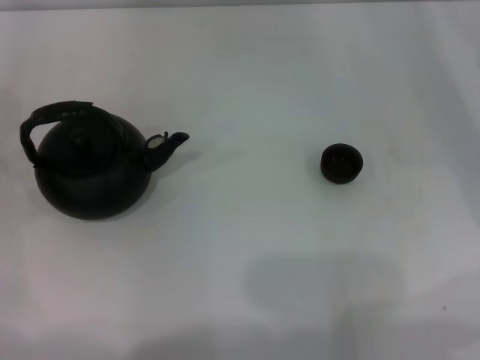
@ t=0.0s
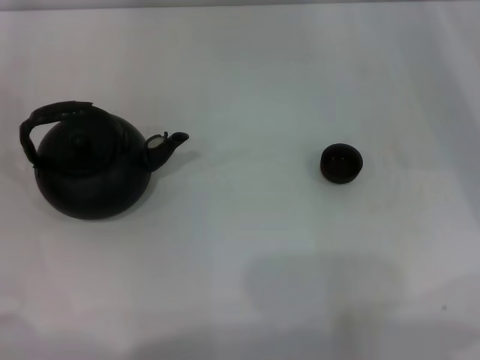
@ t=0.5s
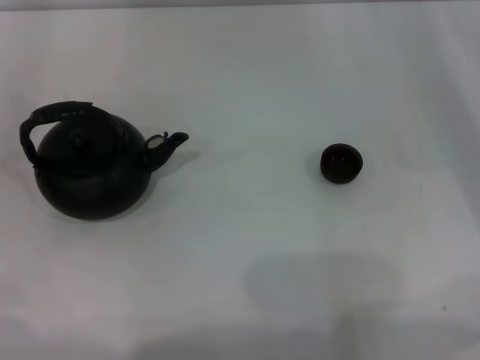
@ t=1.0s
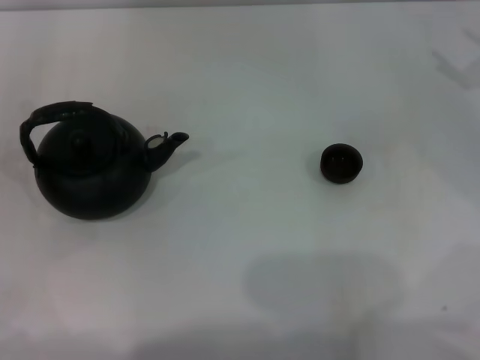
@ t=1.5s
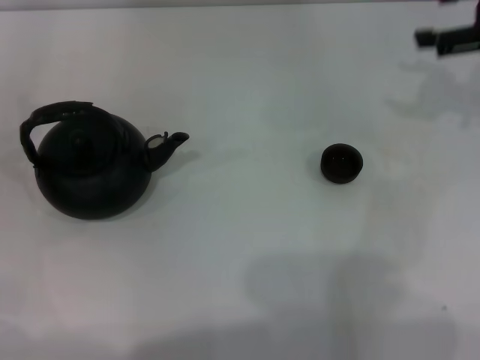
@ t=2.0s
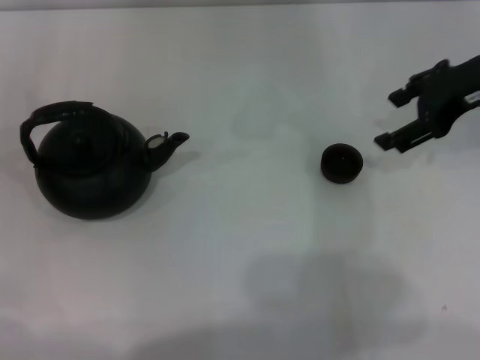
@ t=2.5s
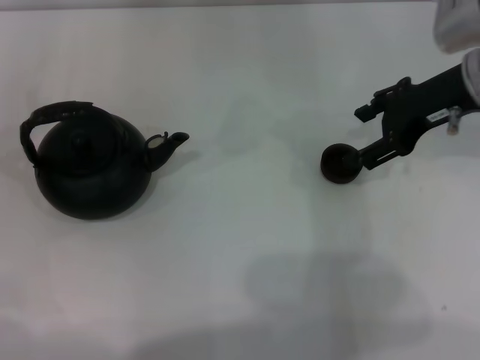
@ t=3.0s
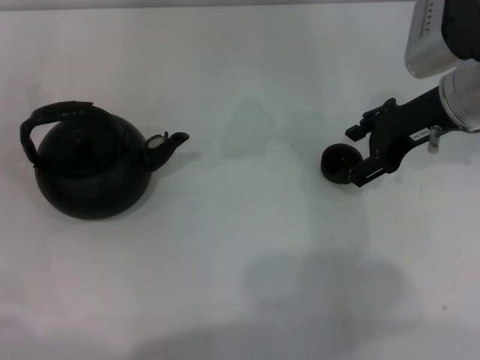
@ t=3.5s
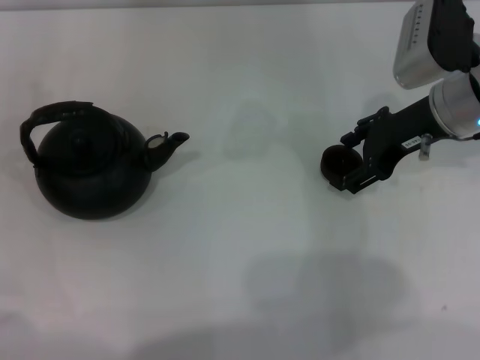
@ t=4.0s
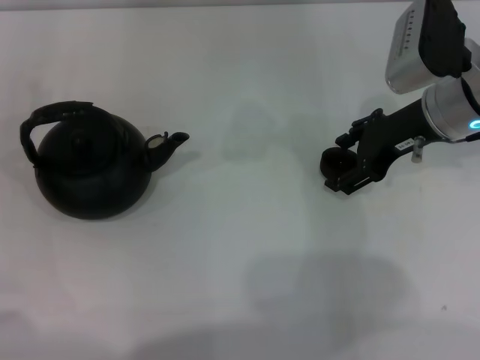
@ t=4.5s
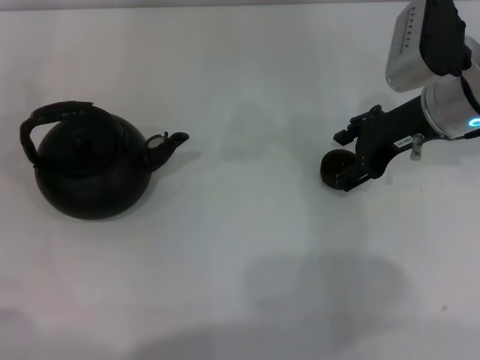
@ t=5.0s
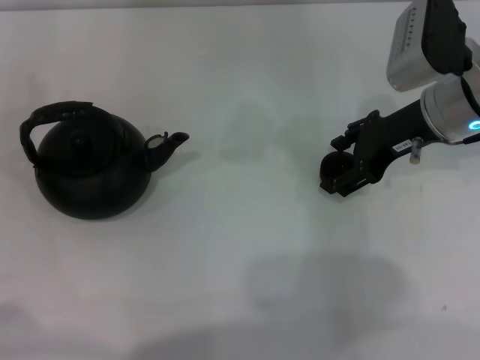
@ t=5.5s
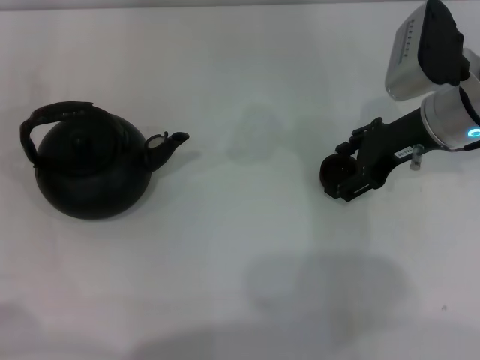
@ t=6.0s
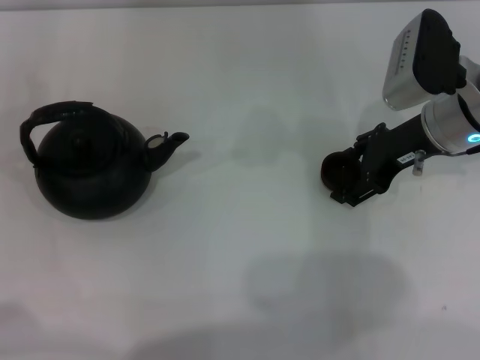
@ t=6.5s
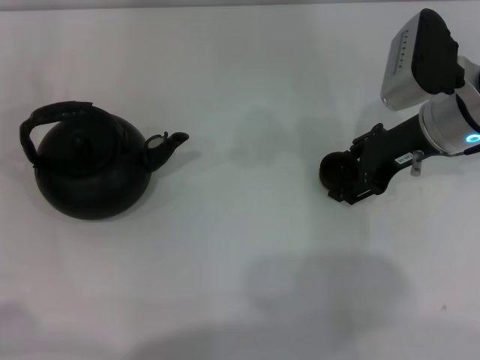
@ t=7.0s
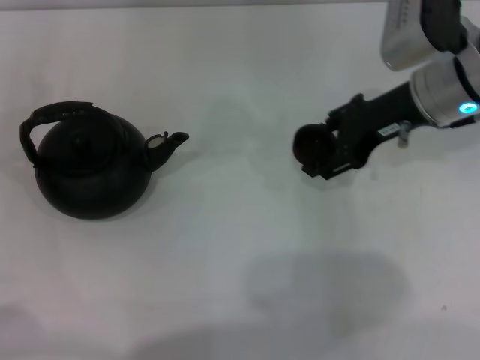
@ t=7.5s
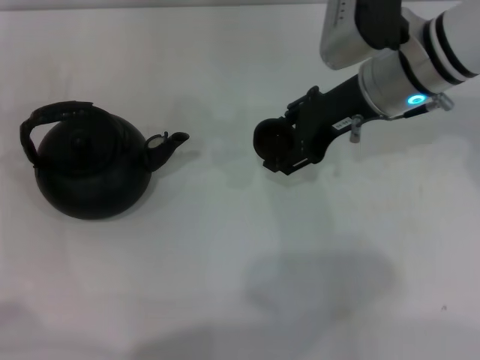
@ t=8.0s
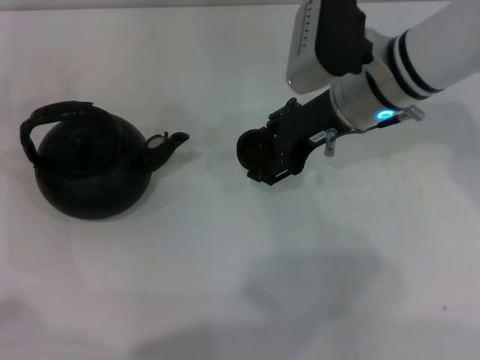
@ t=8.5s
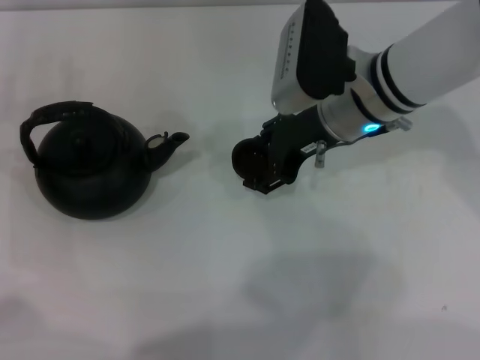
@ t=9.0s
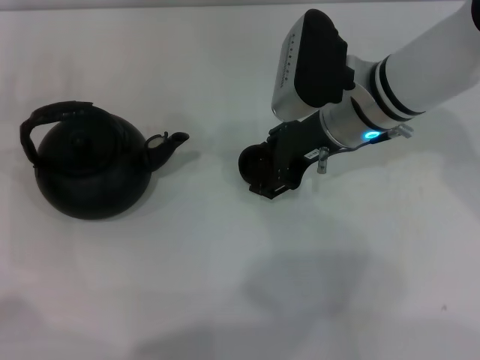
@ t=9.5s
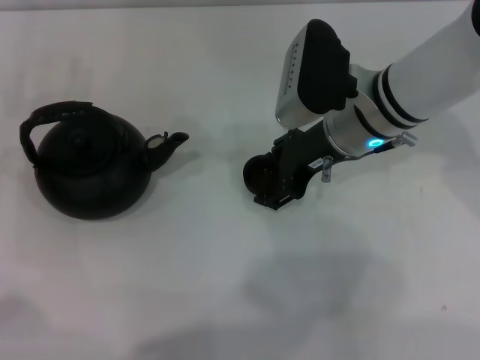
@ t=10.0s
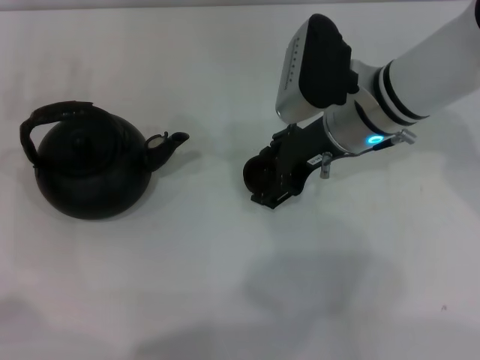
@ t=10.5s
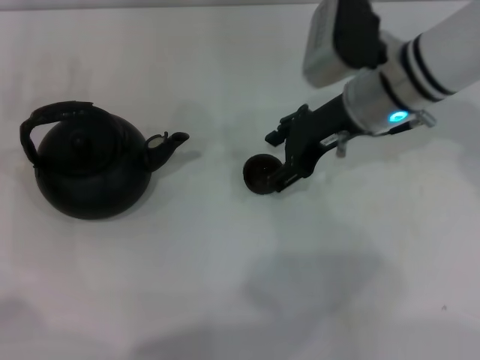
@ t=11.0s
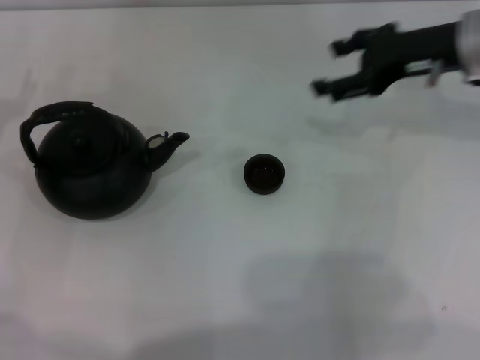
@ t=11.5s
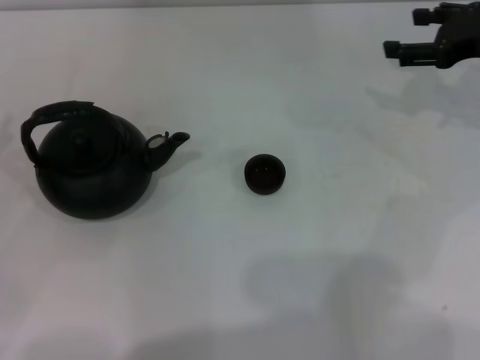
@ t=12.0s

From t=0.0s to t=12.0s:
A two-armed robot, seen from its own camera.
Task of the whole recording: Grasp the handle of the teapot with one hand and pour tea into the teacup.
Step, from t=0.0s to t=7.0s: Pick up the teacup with the right gripper.
Step, from t=7.5s to t=11.0s: Place the teacup in the center of view with the right gripper.
From t=0.0s to t=2.0s: The right gripper shifts some 15 cm upward.
From t=2.0s to t=4.0s: The right gripper heads to the left and downward, covering roughly 15 cm.
From t=4.0s to t=6.0s: The grippers make only small movements.
From t=6.0s to t=8.0s: The right gripper is displaced to the left by roughly 5 cm, and closes.
From t=8.0s to t=10.0s: The right gripper shifts by some 5 cm.
From t=10.0s to t=12.0s: The left gripper heads backward and to the left, covering about 10 cm; the right gripper heads to the right, covering approximately 20 cm, and opens.

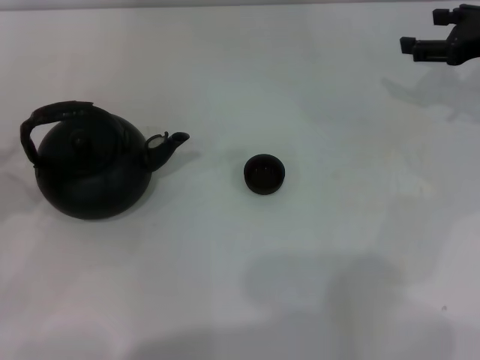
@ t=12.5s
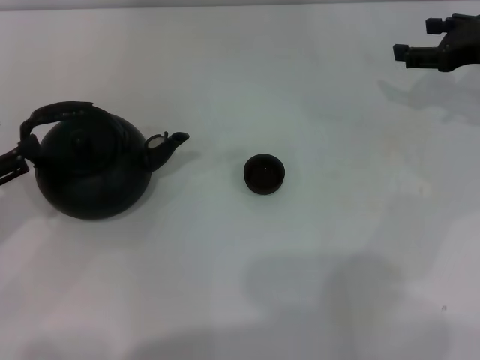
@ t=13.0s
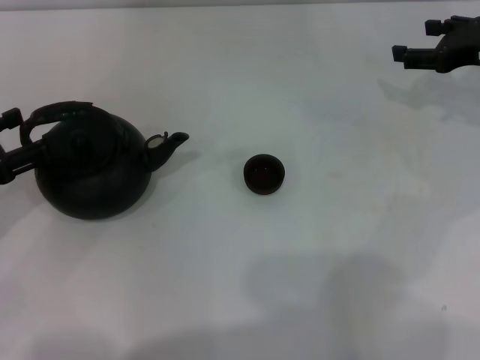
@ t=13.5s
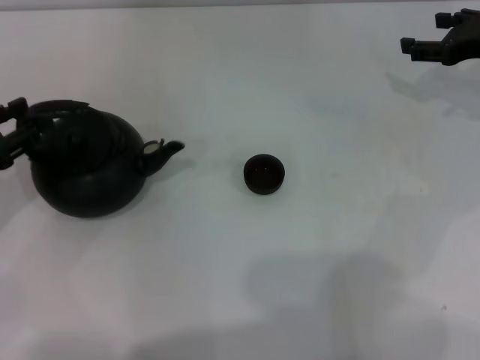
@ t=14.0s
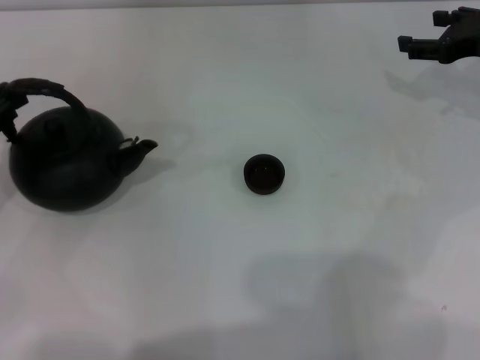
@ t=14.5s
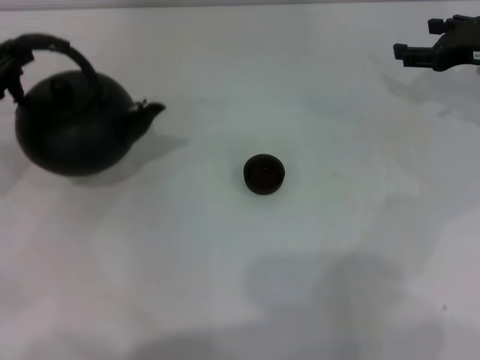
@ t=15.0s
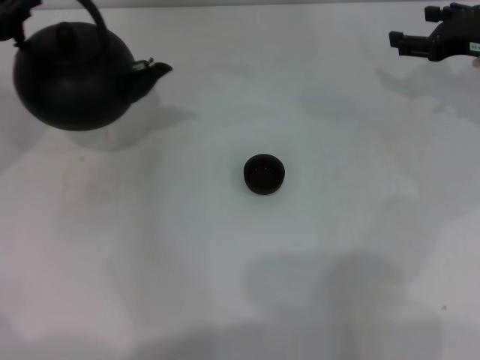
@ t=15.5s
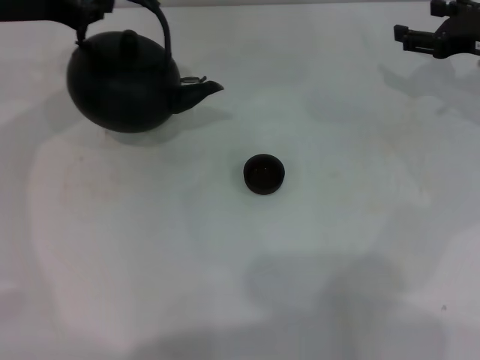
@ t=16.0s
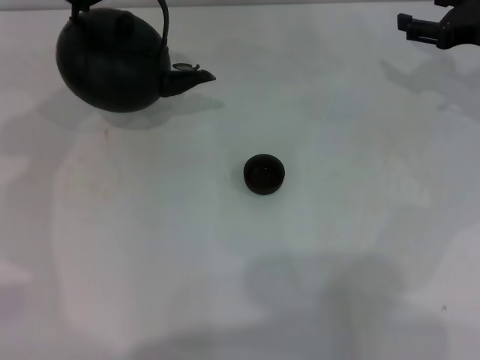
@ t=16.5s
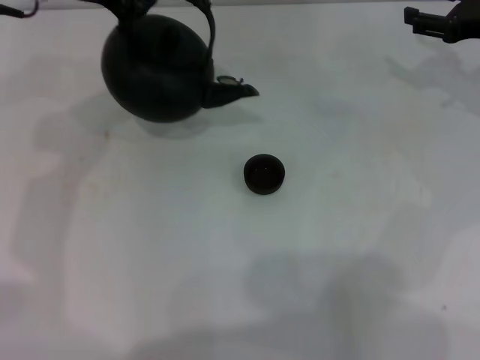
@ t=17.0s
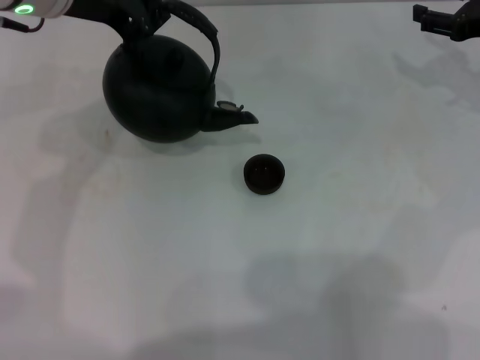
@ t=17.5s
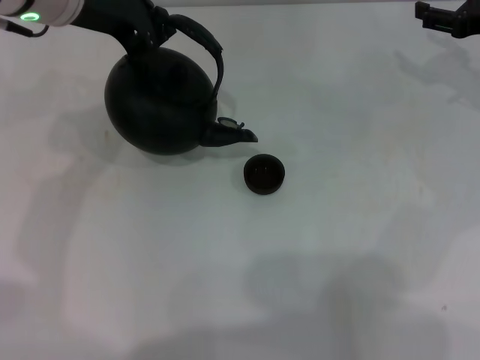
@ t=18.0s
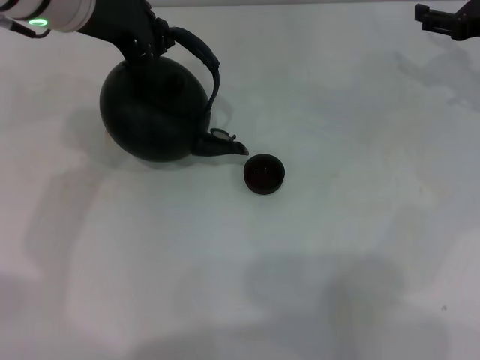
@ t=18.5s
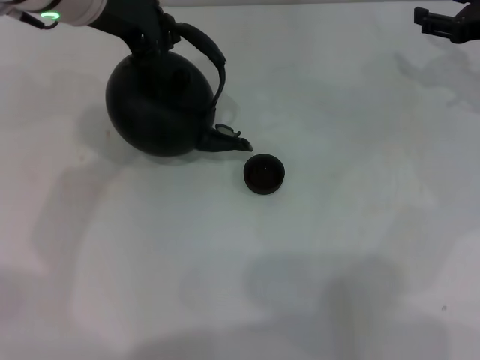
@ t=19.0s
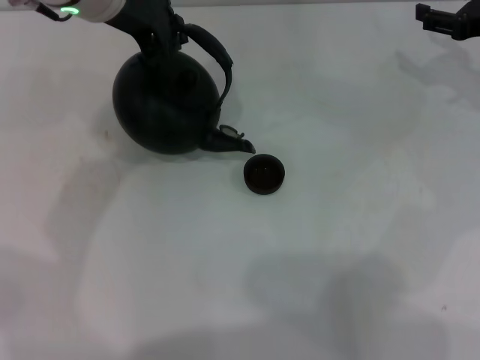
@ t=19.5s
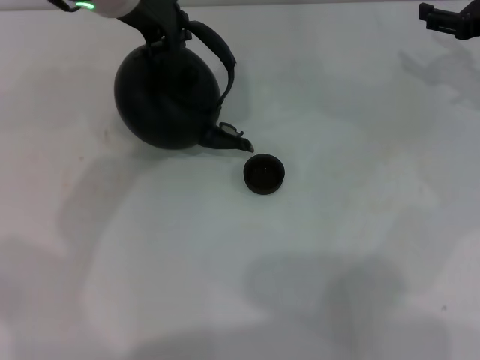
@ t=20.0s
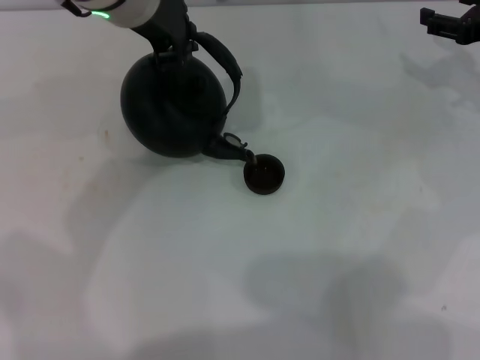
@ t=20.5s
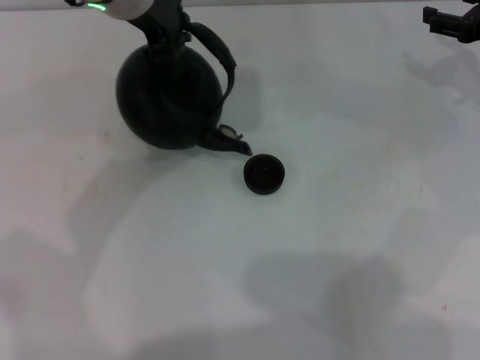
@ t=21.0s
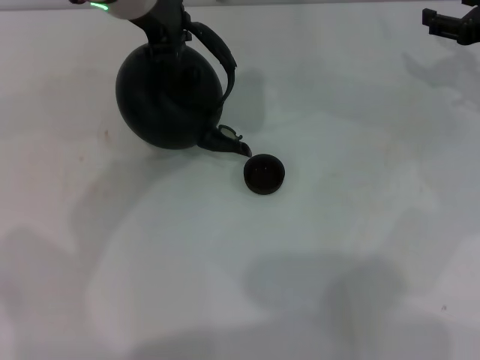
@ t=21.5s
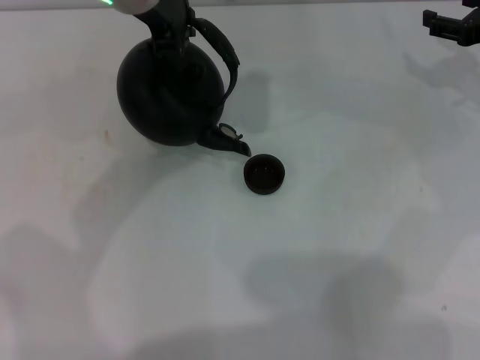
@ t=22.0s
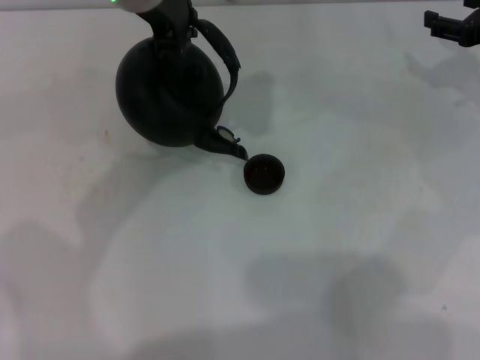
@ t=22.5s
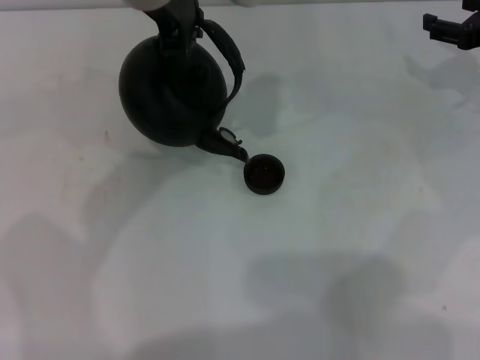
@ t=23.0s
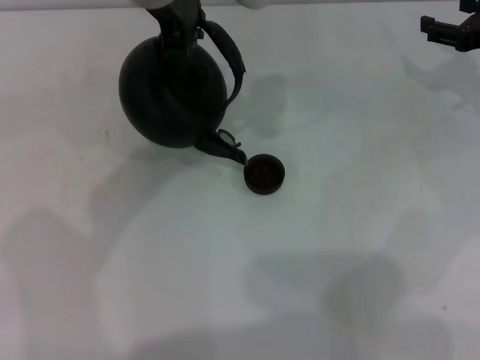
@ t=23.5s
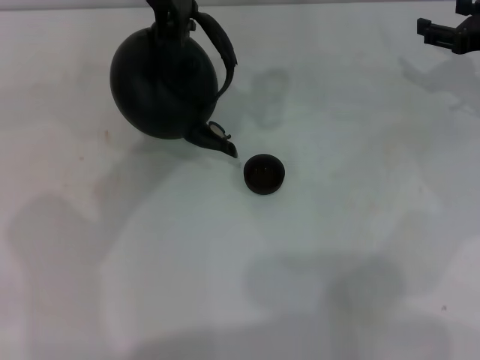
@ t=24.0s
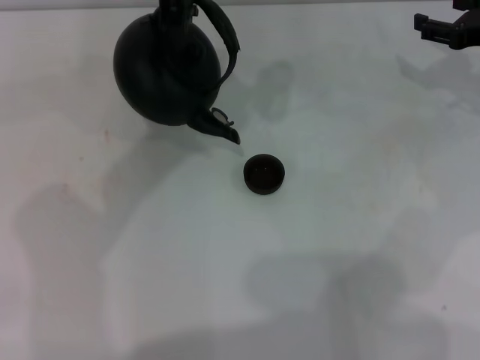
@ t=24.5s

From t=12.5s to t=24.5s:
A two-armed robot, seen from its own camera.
Task of the whole recording: Grasp the handle of the teapot with one hand and pour tea into the teacup.
Step, from t=12.5s to t=15.0s: Pick up the teapot with the left gripper.
From t=12.5s to t=14.5s: The left gripper is displaced forward by some 5 cm, and closes up.
From t=14.5s to t=16.5s: The left gripper heads forward, upward and to the right, covering some 25 cm.
From t=16.5s to t=18.5s: The left gripper moves to the right, some 5 cm.
From t=18.5s to t=20.5s: The left gripper shifts some 5 cm to the right.
From t=20.5s to t=24.5s: The grippers stay close to where they were, moving slightly.

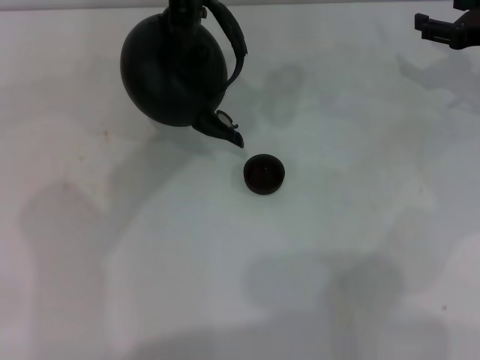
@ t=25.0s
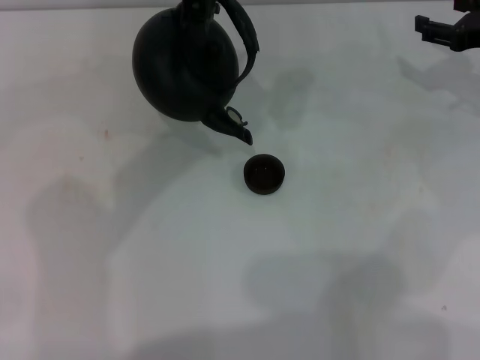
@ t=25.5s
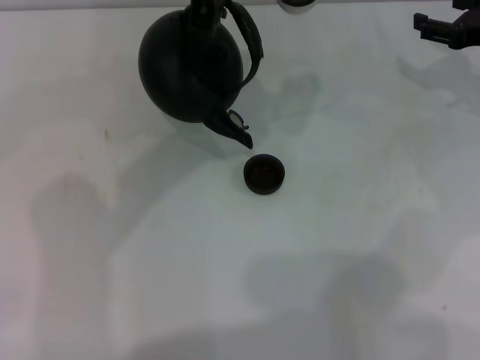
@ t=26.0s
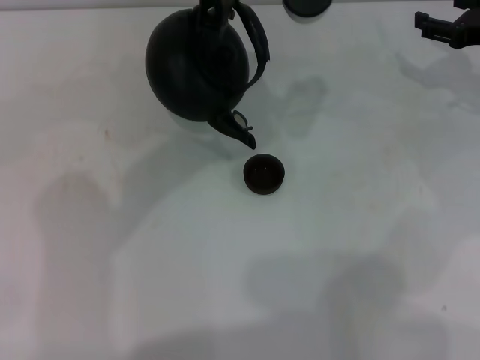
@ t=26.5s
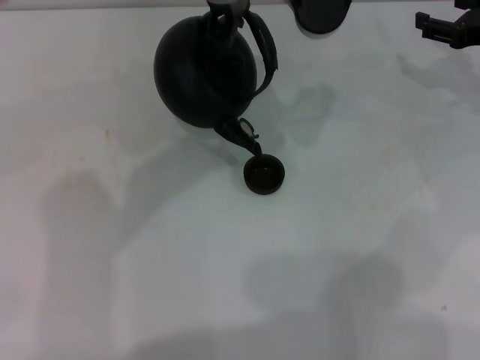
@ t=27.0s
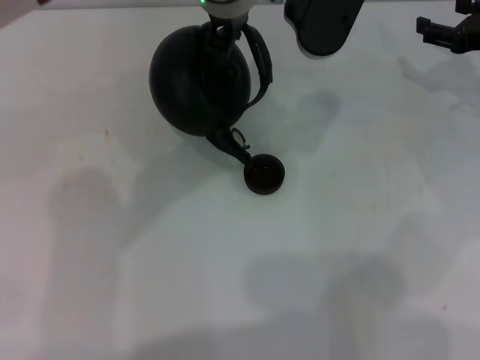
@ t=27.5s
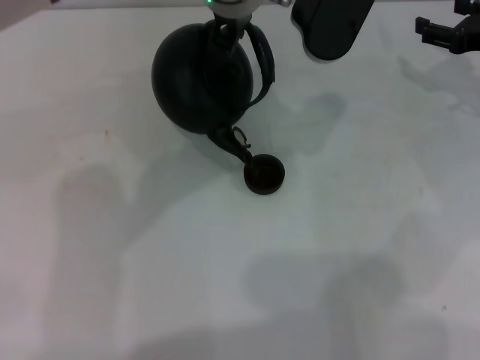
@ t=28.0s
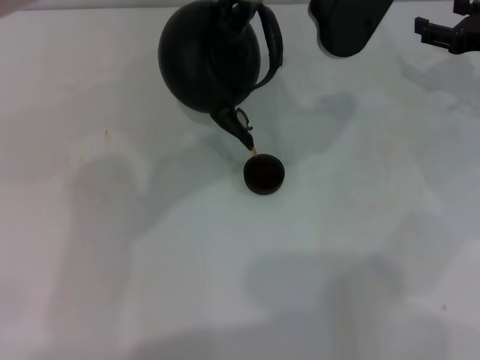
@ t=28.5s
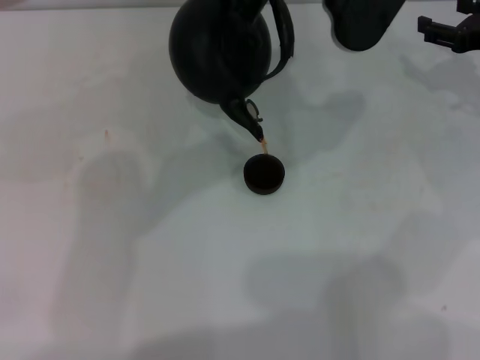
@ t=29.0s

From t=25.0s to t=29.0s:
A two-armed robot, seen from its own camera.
Task of the whole recording: Grasp the handle of the teapot with one hand and pour tea into the teacup.
From t=25.0s to t=27.0s: The grippers move only a little.
From t=27.0s to t=29.0s: The grippers stay close to where they were, moving slightly.
